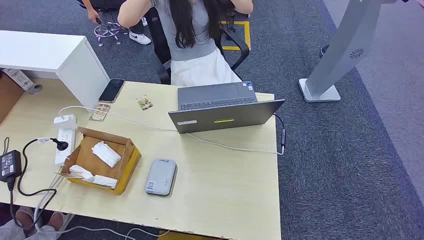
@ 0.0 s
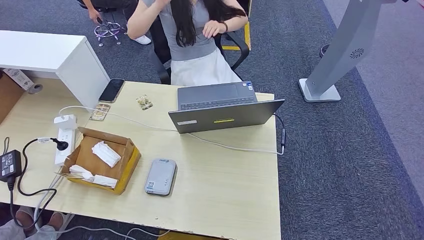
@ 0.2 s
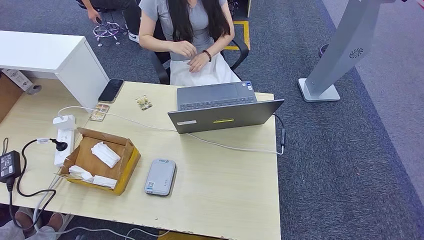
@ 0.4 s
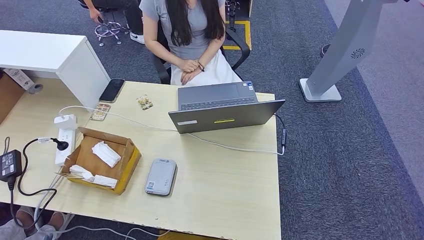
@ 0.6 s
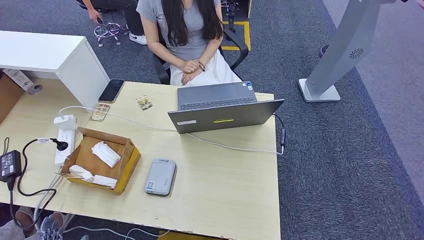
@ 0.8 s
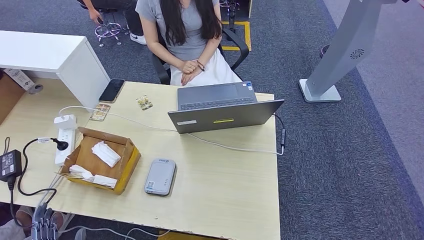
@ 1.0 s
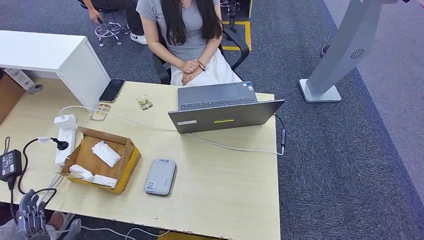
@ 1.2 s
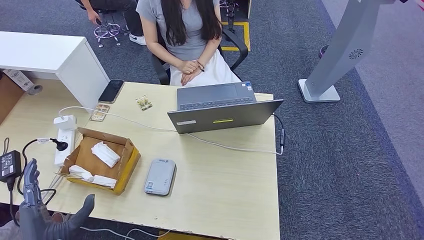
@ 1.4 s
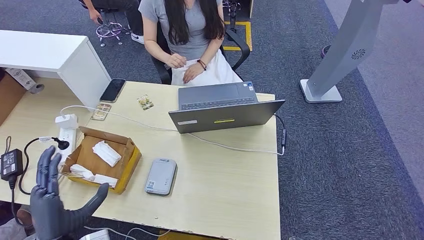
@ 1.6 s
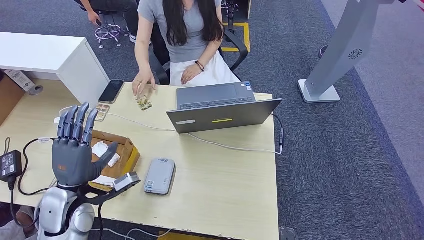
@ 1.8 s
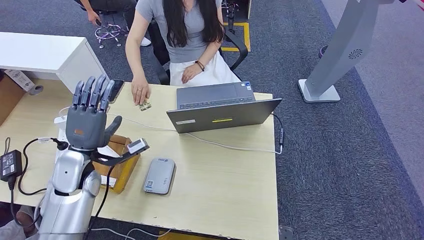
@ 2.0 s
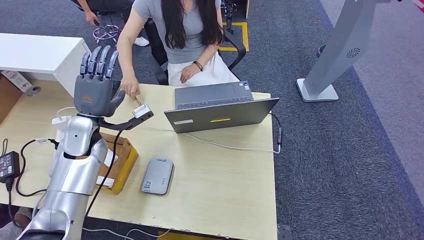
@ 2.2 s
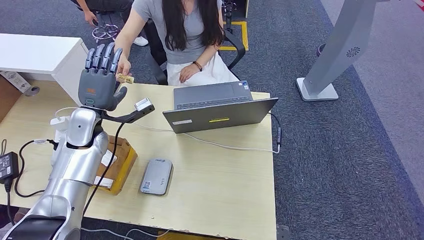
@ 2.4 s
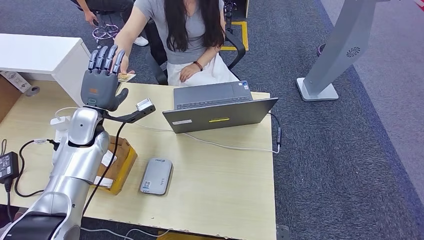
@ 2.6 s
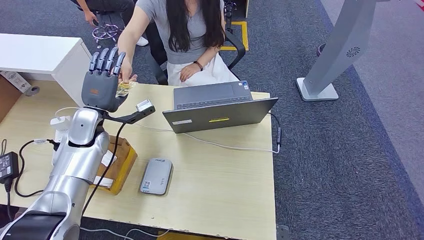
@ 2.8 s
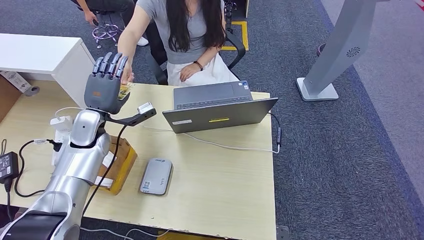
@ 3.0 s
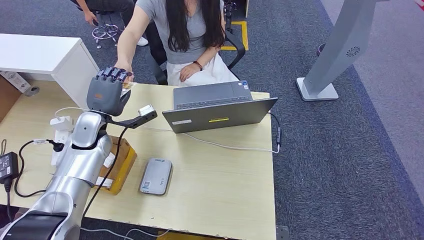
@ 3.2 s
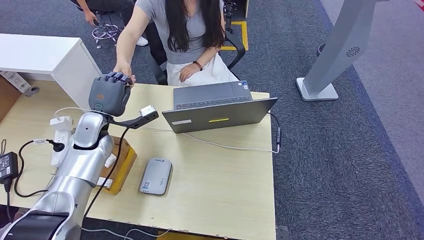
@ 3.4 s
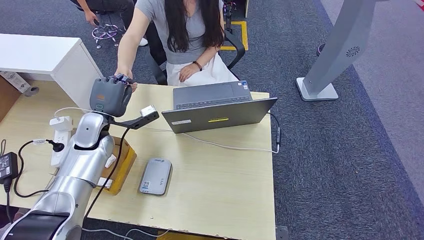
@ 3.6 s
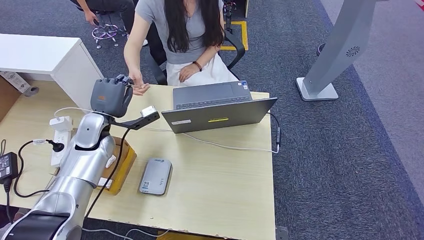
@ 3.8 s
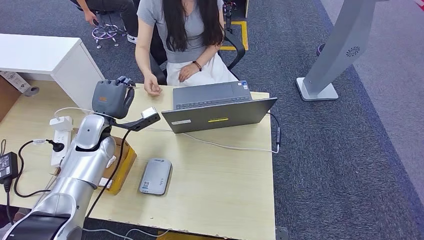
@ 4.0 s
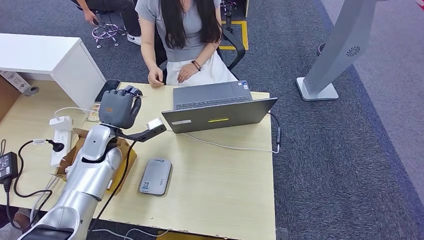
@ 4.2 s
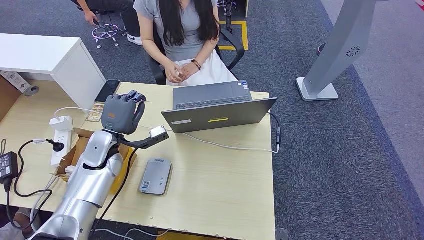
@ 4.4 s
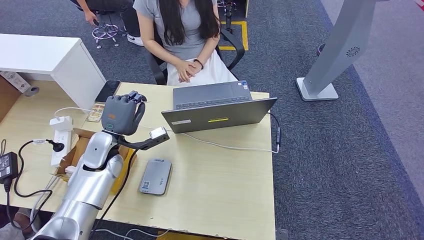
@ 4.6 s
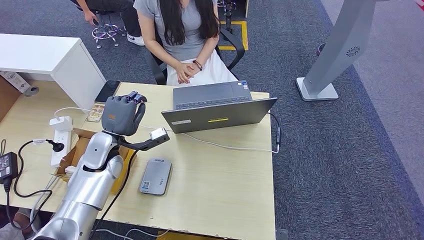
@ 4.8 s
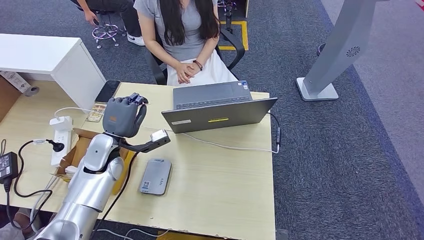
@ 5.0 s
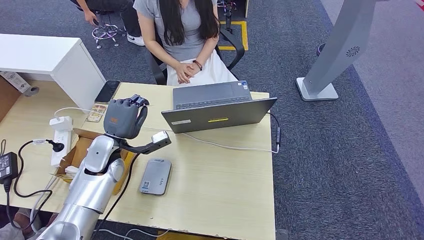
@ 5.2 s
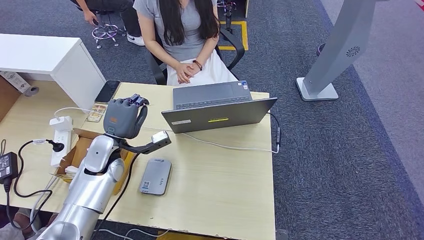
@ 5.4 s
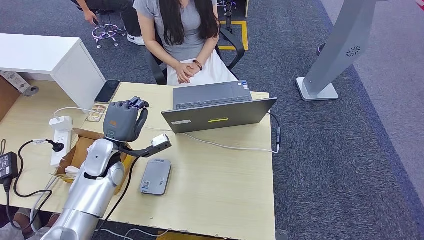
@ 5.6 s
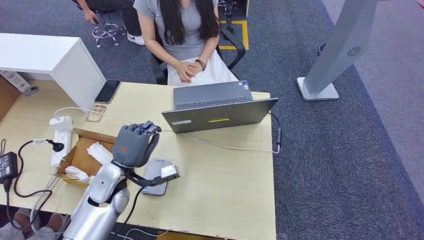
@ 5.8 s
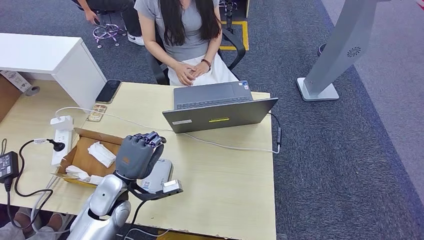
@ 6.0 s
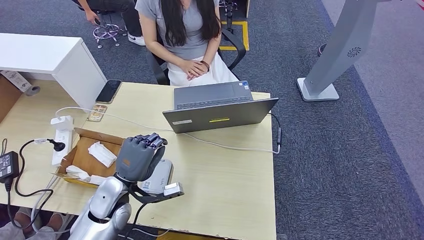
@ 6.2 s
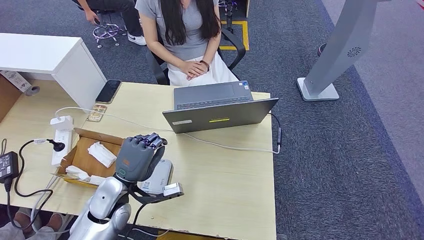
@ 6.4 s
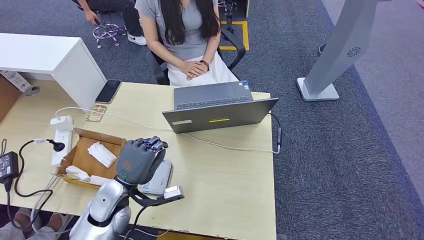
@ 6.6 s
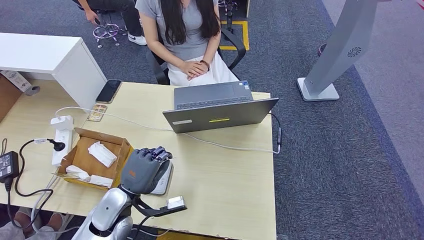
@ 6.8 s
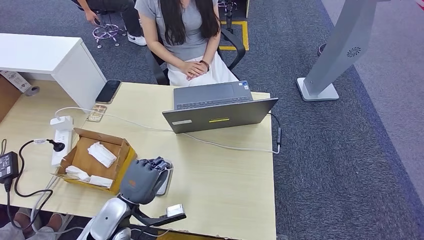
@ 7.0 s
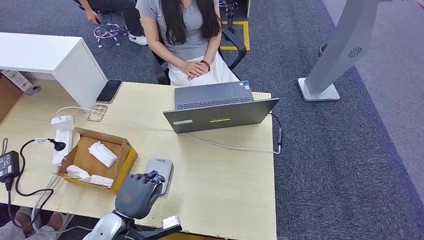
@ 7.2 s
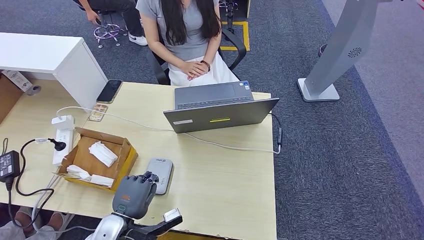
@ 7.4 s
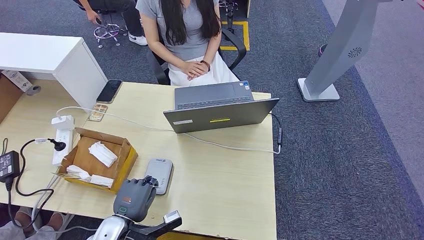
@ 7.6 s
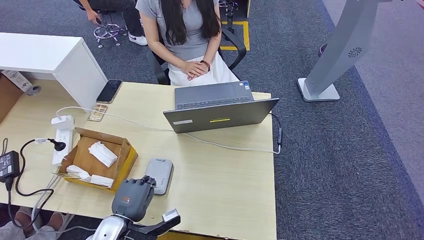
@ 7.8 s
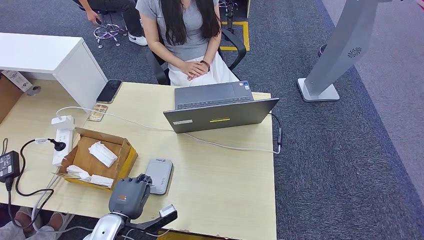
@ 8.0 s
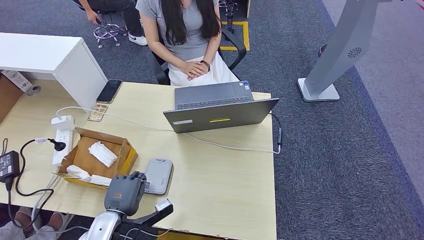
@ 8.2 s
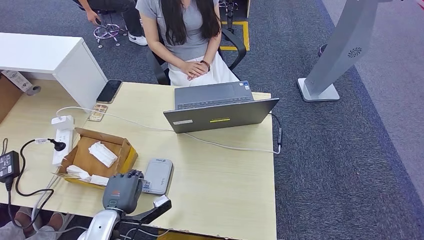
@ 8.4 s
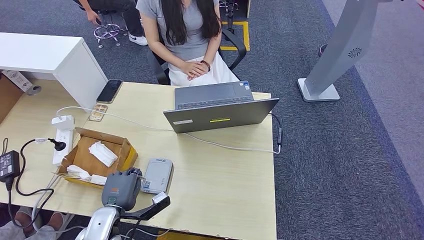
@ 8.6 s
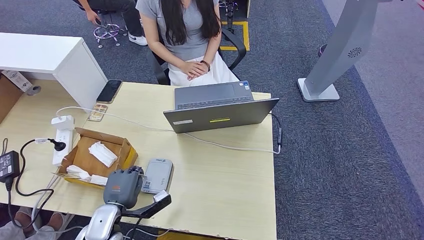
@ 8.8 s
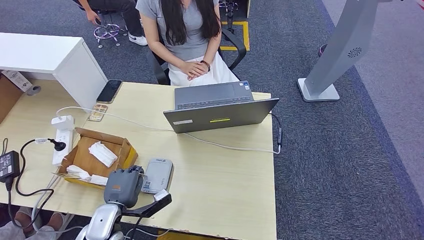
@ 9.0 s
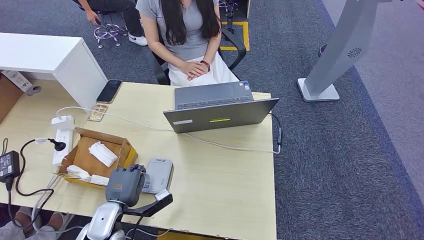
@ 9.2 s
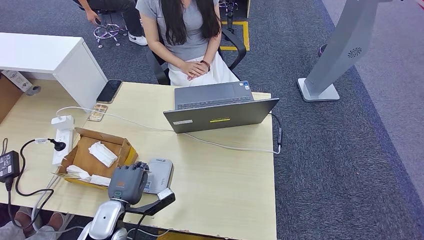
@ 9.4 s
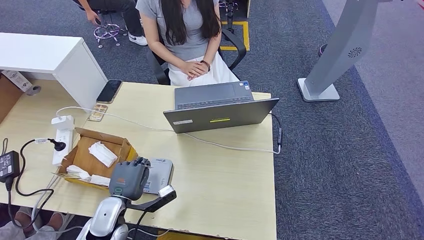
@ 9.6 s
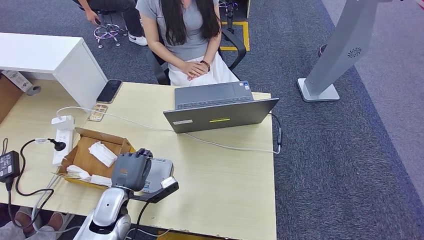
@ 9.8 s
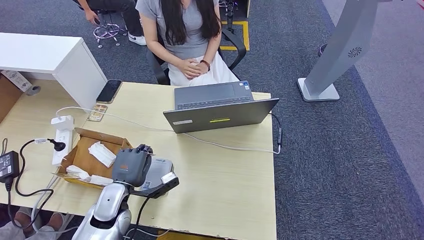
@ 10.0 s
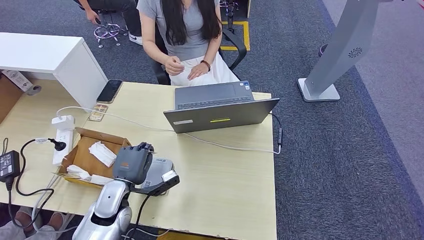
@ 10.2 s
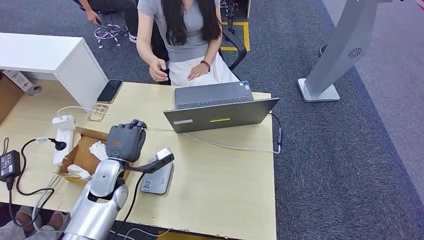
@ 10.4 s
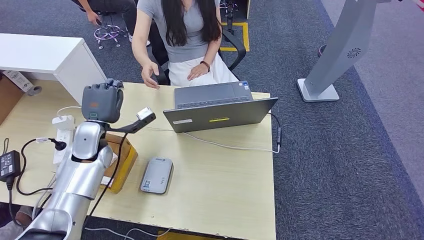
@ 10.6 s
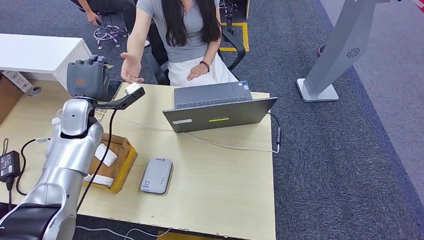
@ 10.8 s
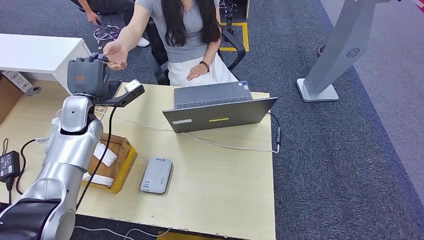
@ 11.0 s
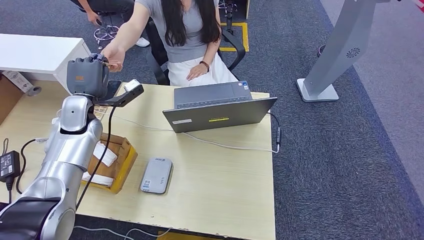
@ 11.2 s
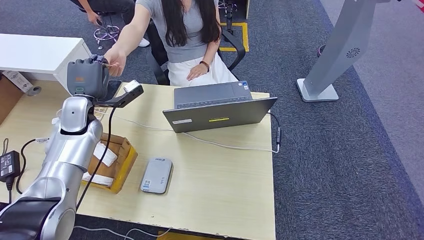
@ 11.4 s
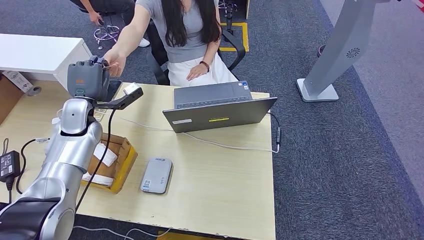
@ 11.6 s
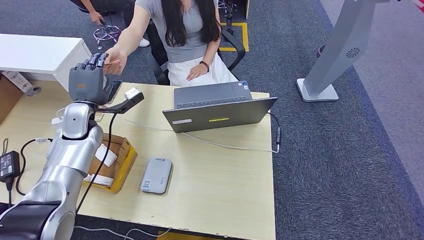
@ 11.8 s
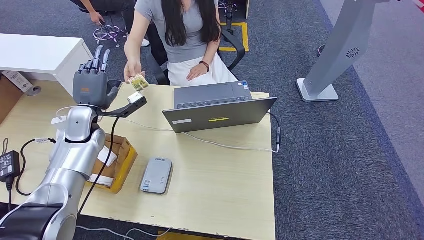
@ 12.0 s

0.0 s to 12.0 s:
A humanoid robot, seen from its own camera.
Step, 0.0 to 3.8 s: Take the ID card from the person's hand.
Step, 4.0 to 9.2 s: Place the ID card on the card reader.
Step, 9.4 to 11.8 s: Hand the ID card to the person.
3.0 to 4.4 s: The left hand ends up about 5 cm from where it was.
4.4 to 6.0 s: The left hand heads backward and to the right, covering some 10 cm.
6.0 to 7.6 s: The left hand is displaced backward and downward by about 10 cm.
7.6 to 9.0 s: The hands move only a little.
9.0 to 10.4 s: The left hand shifts approximately 10 cm forward and upward.
10.4 to 12.0 s: The left hand is displaced forward, to the left and upward by about 15 cm.

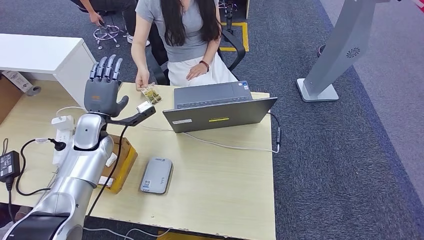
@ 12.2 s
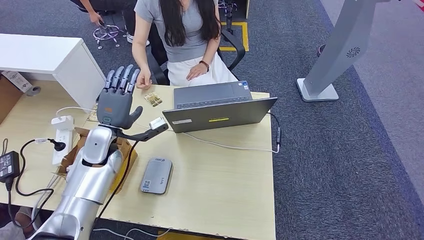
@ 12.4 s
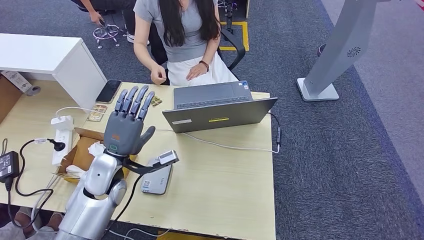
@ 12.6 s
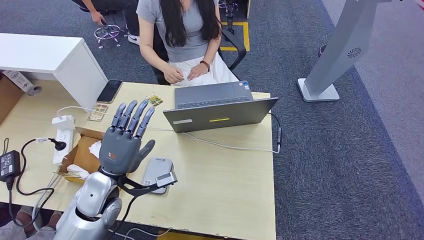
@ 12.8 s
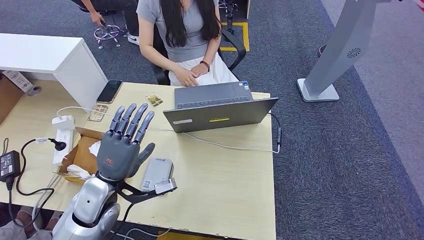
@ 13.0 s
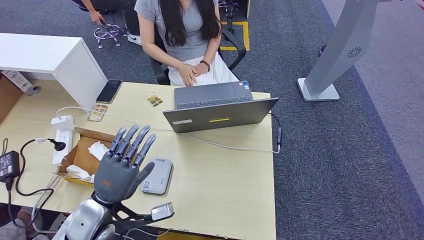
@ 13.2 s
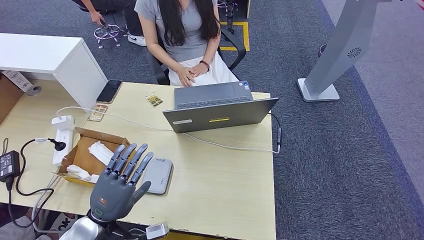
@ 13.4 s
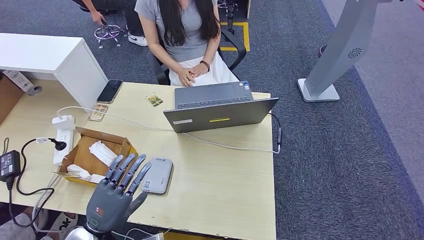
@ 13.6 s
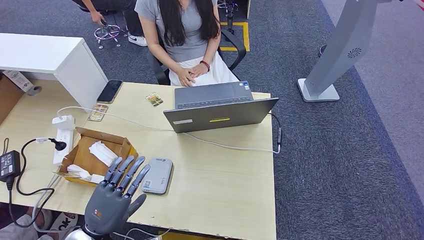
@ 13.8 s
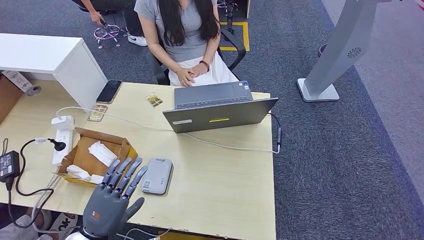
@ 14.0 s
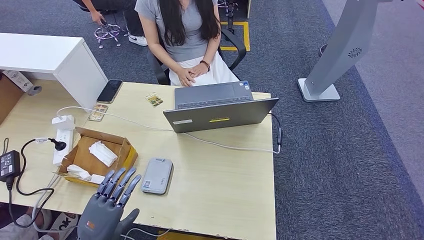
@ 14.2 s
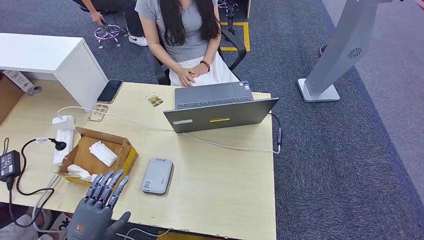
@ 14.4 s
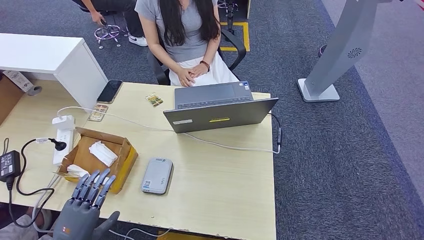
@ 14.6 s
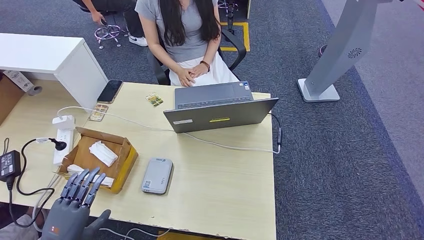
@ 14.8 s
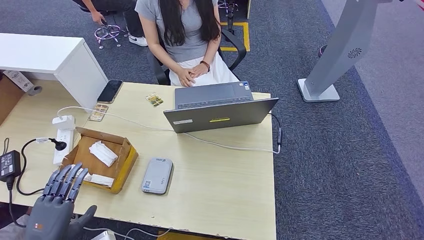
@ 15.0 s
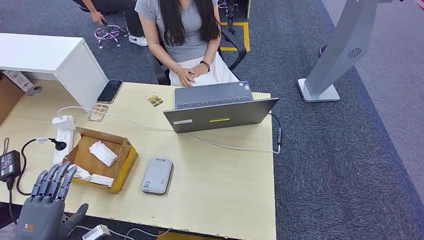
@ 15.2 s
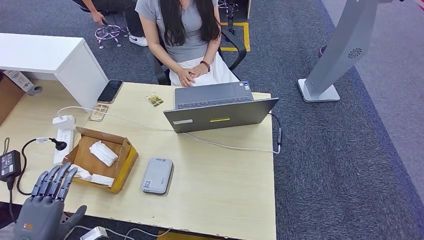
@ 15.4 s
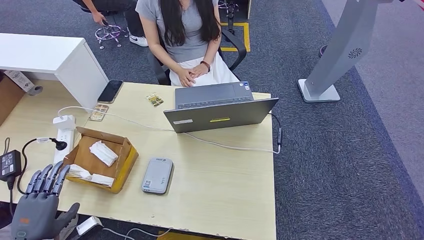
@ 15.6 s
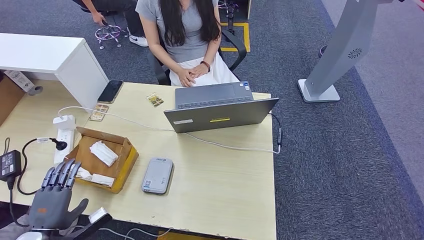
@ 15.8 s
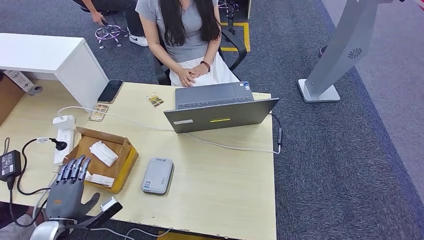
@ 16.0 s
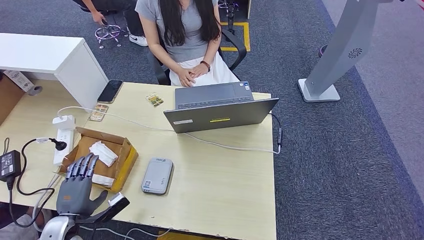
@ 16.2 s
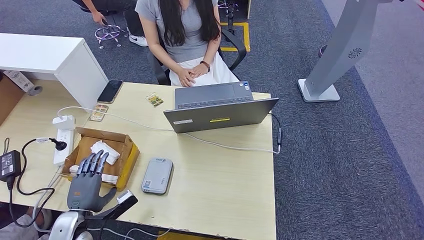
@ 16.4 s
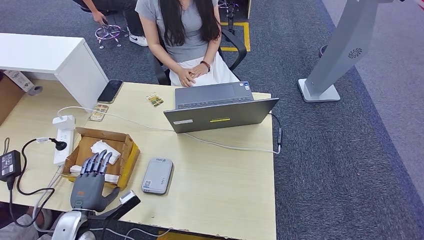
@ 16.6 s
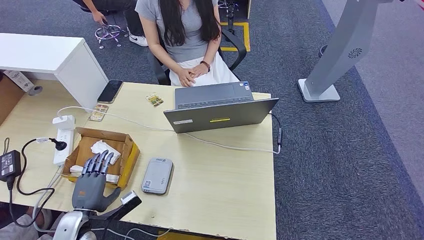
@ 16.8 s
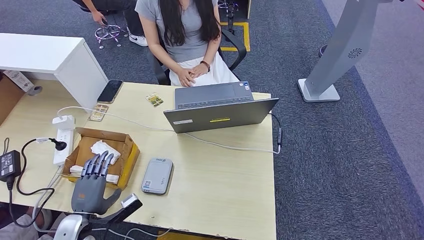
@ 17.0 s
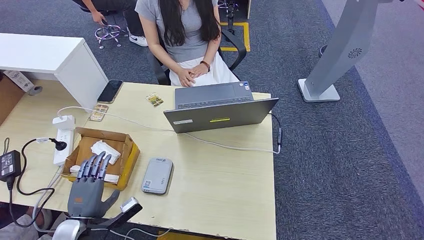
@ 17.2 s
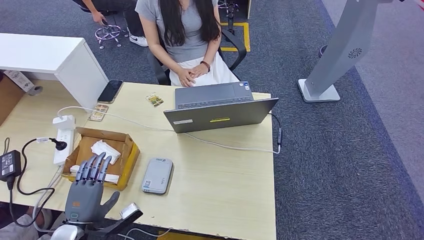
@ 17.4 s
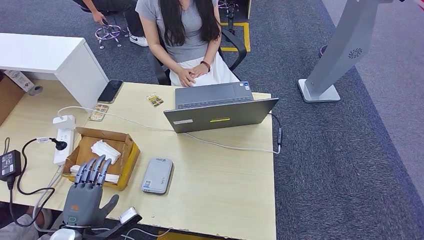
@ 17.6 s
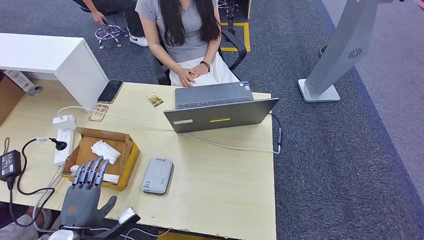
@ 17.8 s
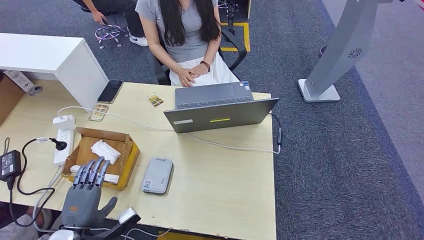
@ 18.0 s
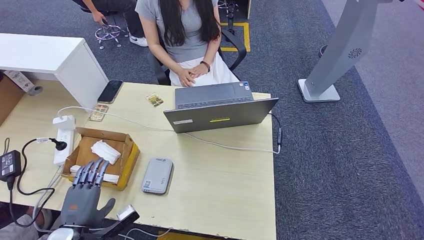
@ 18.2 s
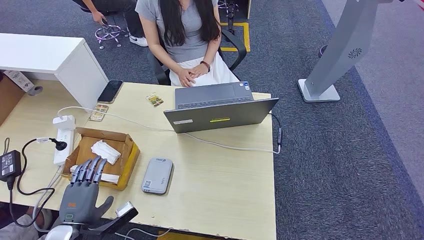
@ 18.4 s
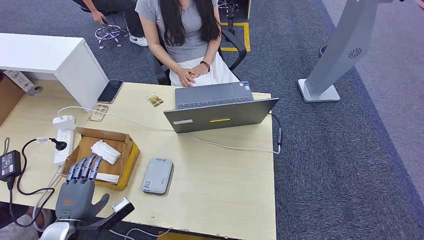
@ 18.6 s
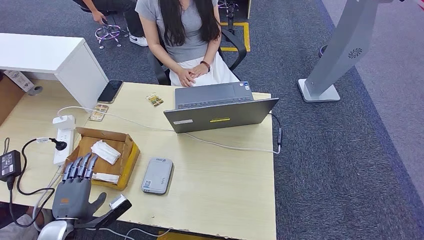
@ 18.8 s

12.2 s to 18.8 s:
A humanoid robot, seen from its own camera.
12.2 to 13.8 s: The left hand moves backward, about 25 cm.
13.8 to 15.4 s: The left hand moves to the left, some 10 cm.
15.4 to 17.2 s: The left hand moves forward, to the right and downward, some 10 cm.
17.2 to 18.8 s: There are only small adjustments of the hands.
